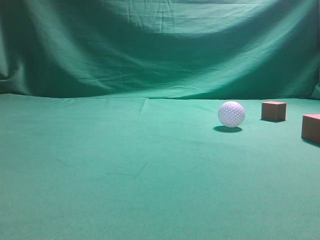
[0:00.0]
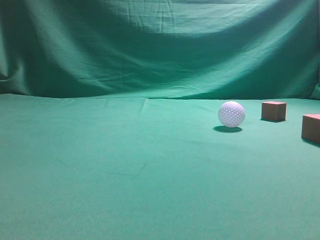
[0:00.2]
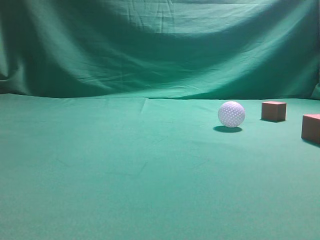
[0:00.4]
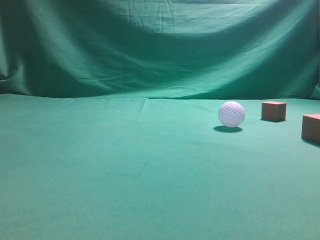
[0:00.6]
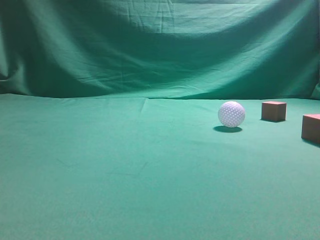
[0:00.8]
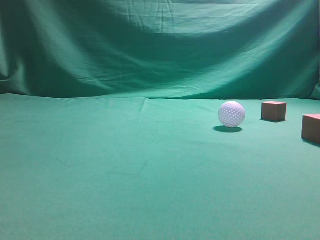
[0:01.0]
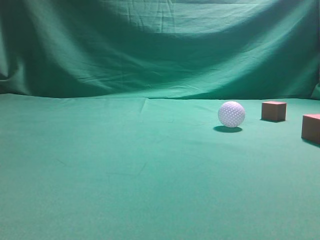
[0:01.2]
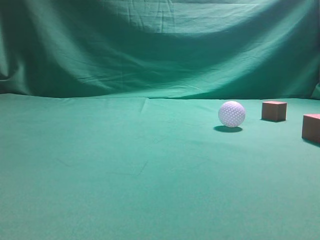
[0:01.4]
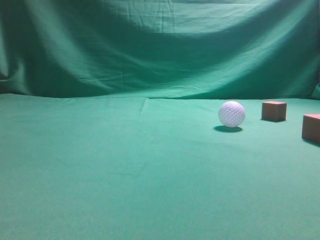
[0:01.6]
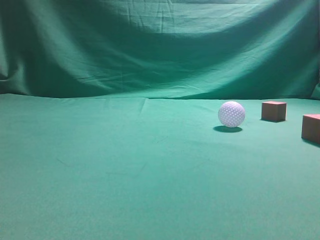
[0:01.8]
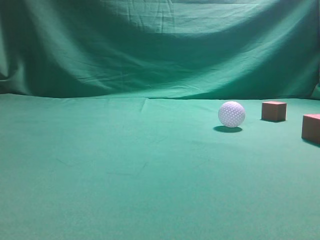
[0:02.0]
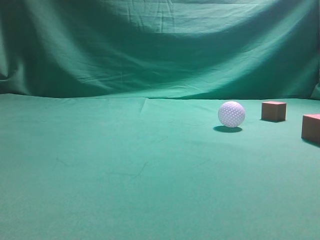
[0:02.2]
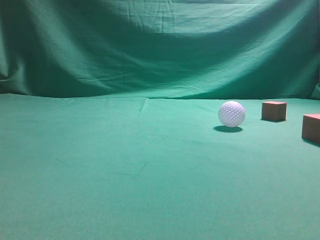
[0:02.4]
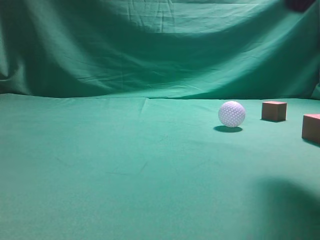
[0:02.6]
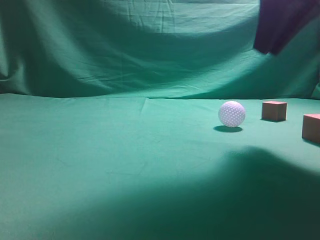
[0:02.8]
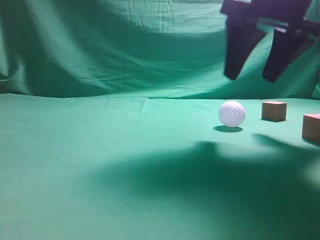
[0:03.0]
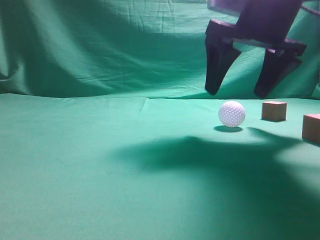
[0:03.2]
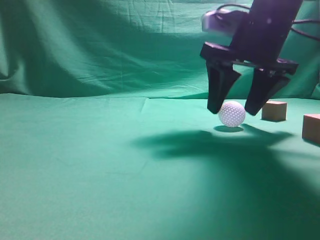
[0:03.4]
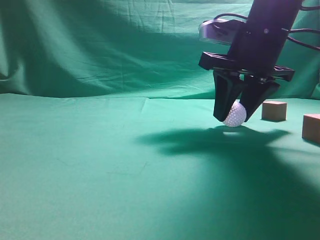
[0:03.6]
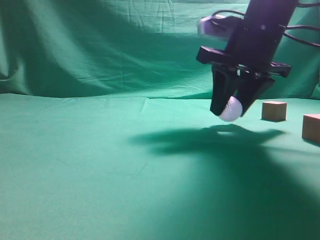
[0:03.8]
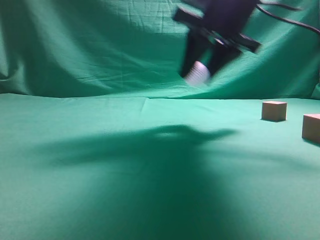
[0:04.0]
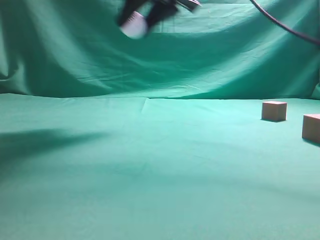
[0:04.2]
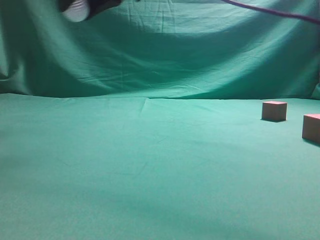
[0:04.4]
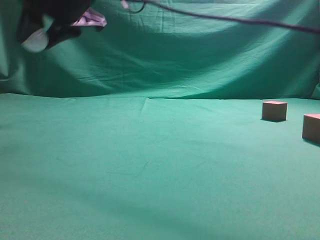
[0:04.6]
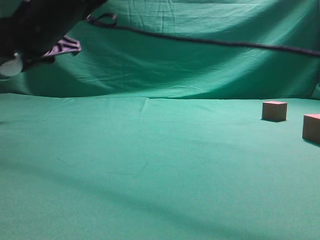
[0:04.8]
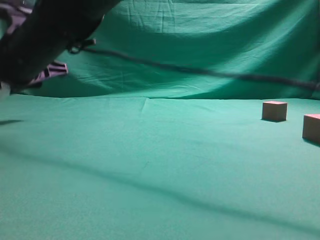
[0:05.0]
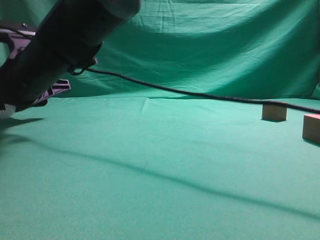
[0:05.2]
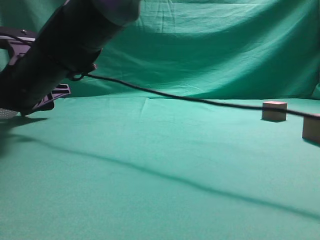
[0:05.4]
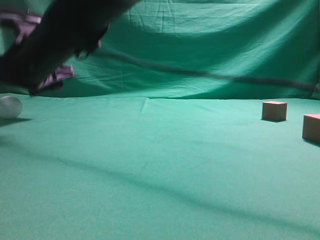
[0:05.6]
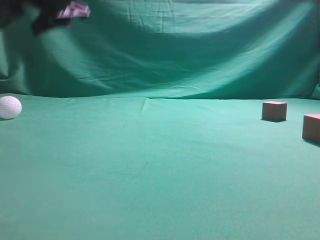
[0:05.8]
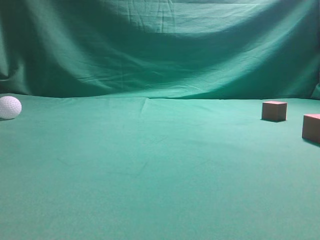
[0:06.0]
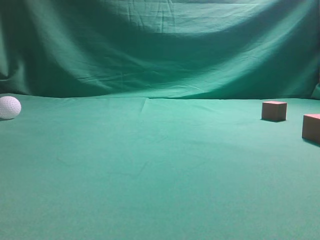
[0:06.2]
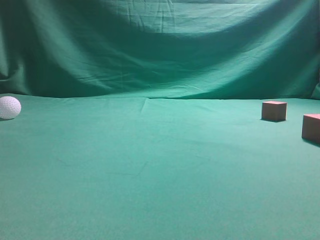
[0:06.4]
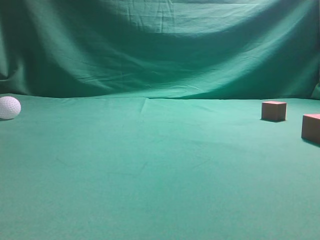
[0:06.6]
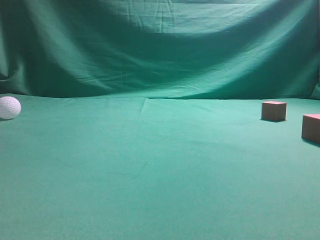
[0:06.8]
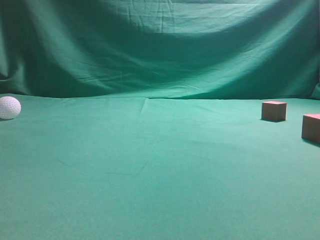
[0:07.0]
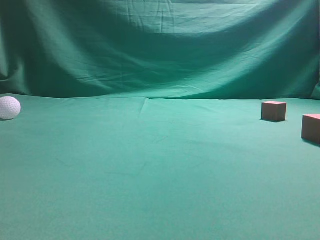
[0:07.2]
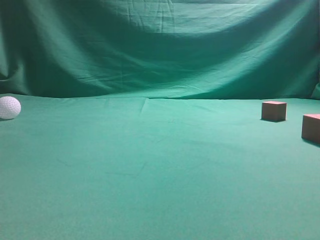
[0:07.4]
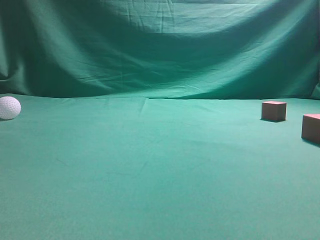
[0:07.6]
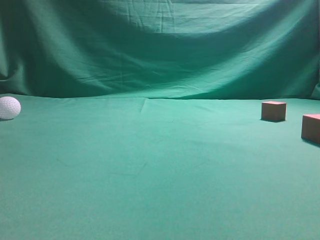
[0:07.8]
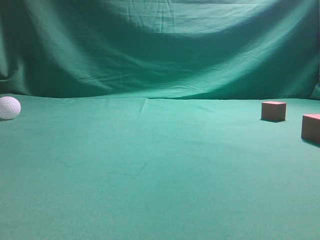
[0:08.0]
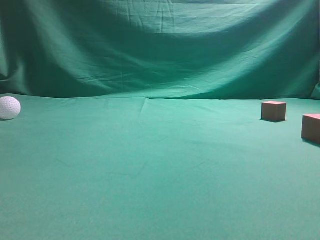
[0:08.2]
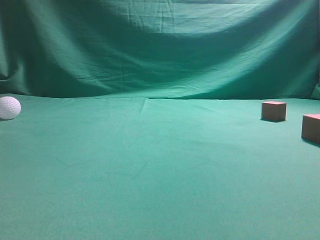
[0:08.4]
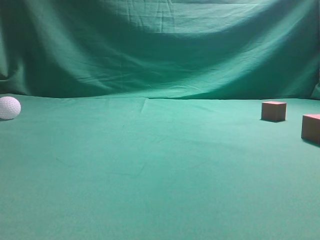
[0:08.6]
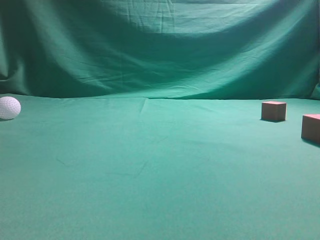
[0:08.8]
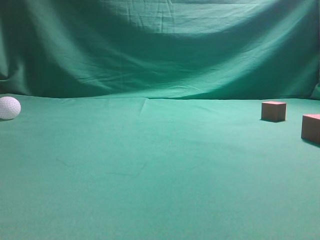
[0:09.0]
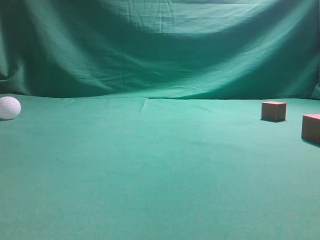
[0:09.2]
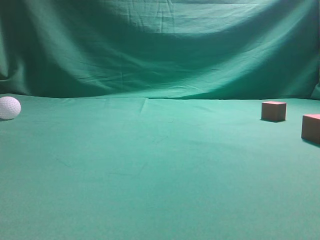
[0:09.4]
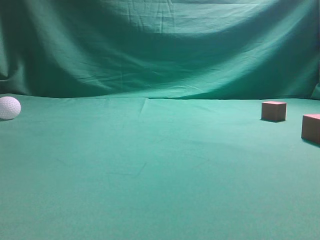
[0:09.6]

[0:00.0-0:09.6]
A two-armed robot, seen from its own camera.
Step, 0:00.0 to 0:04.2: Grasp the spherical object on the right side.
0:01.6 to 0:03.2: The right gripper moves forward and to the left, some 30 cm, and opens its fingers.
0:03.2 to 0:04.8: The right gripper moves to the left, roughly 30 cm, and closes up.
0:04.8 to 0:06.4: The right gripper is displaced upward and to the right by approximately 35 cm, and closes up.
